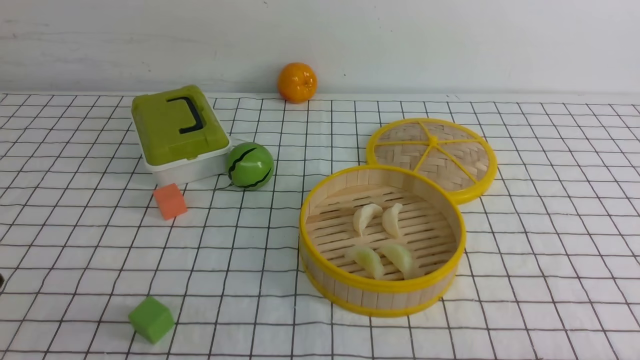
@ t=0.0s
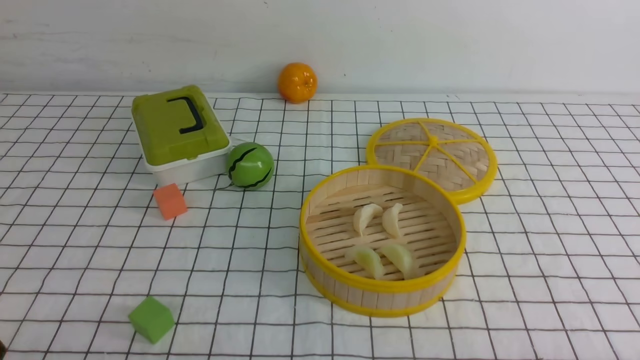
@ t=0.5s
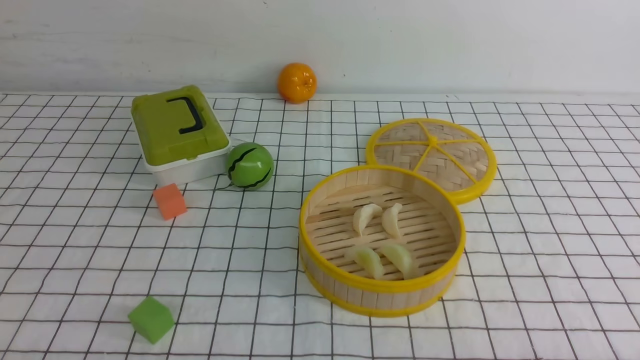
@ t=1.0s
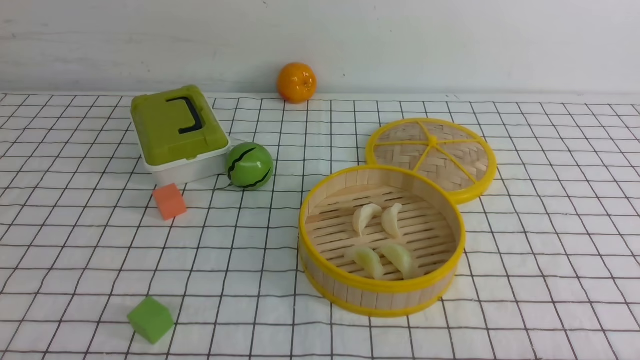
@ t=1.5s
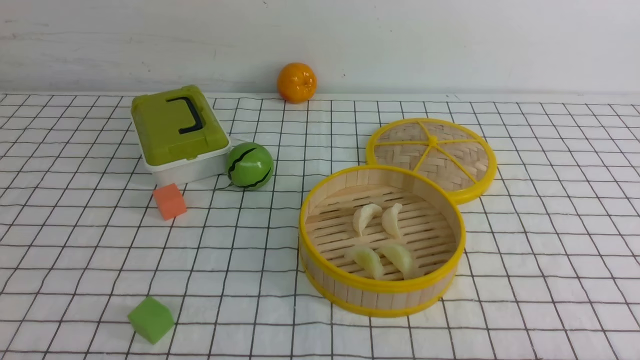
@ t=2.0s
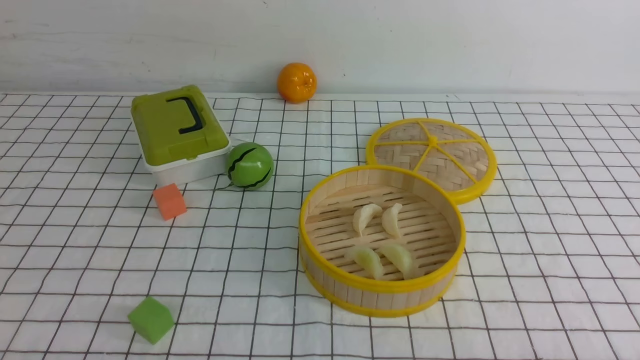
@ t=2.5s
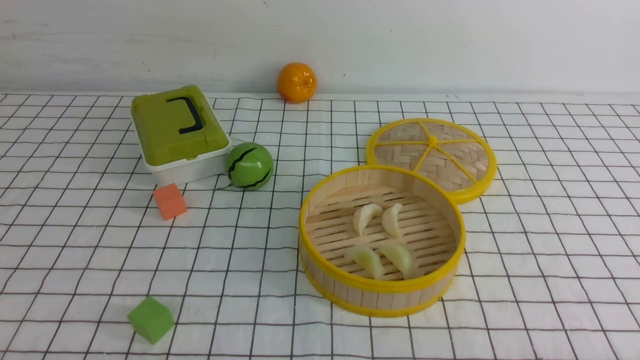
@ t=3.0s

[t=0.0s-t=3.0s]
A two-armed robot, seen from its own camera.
Task of the whole recording: put the dumplings into the steamer on the table with the white tablecloth.
t=1.5s to t=3.0s: Both grippers stay about where they are.
